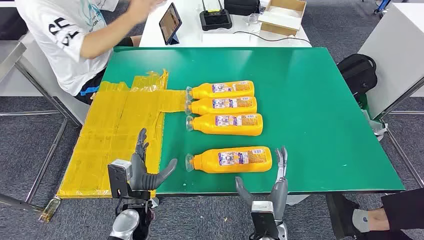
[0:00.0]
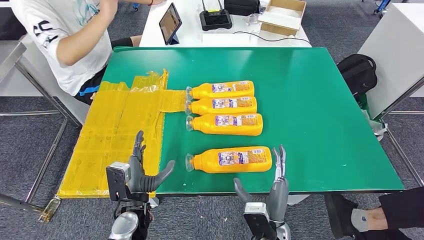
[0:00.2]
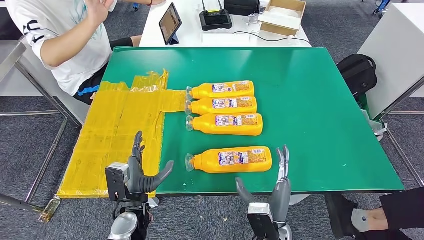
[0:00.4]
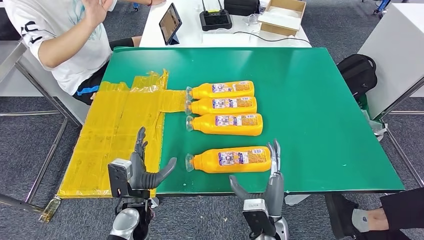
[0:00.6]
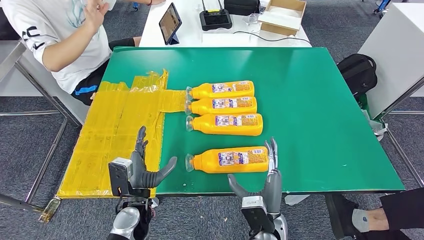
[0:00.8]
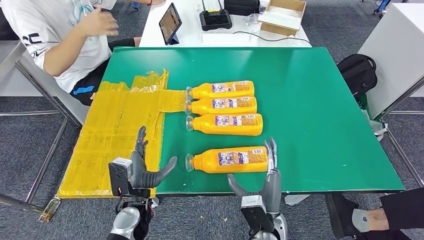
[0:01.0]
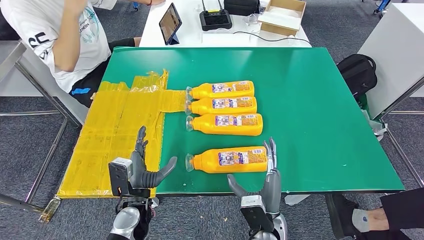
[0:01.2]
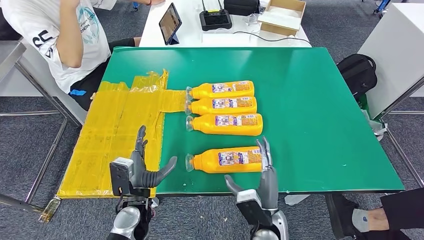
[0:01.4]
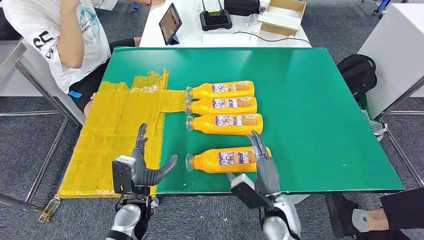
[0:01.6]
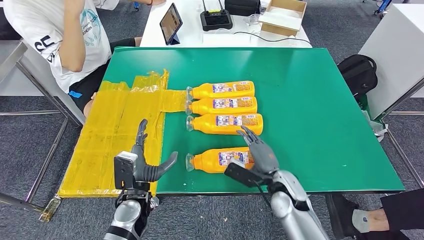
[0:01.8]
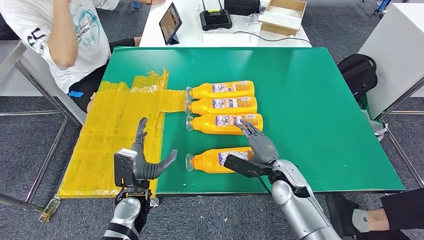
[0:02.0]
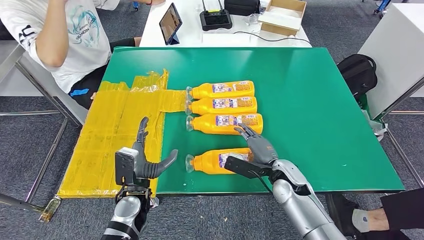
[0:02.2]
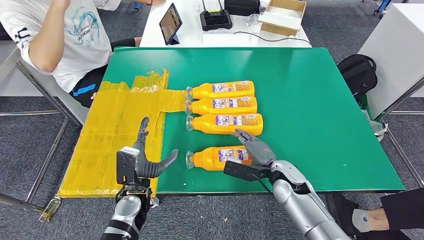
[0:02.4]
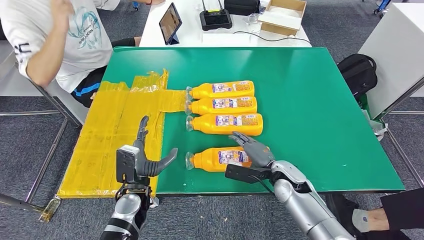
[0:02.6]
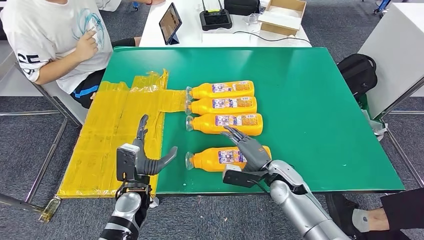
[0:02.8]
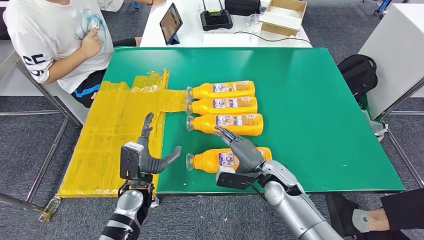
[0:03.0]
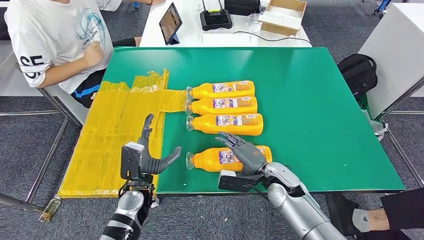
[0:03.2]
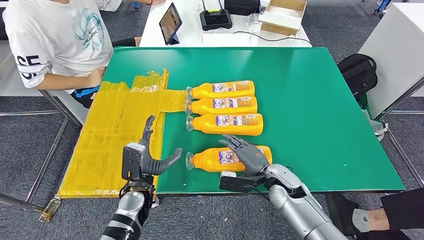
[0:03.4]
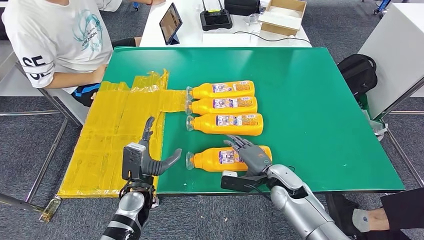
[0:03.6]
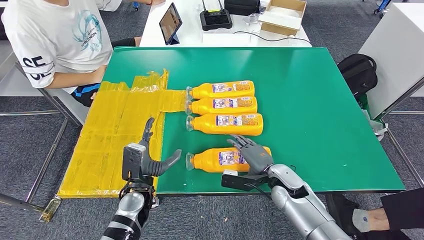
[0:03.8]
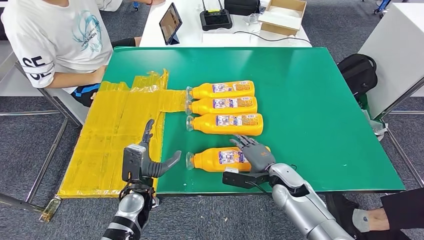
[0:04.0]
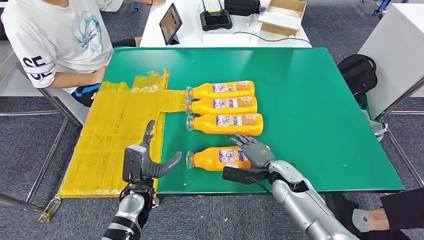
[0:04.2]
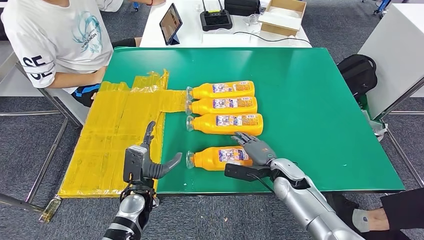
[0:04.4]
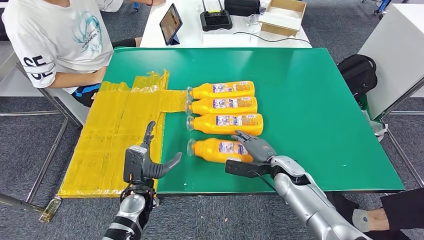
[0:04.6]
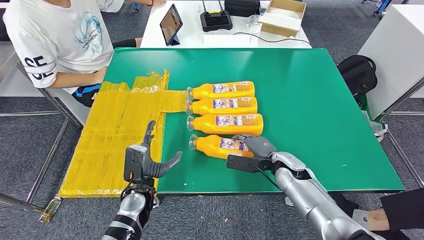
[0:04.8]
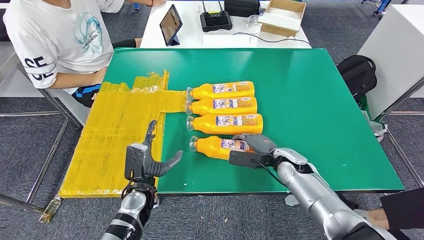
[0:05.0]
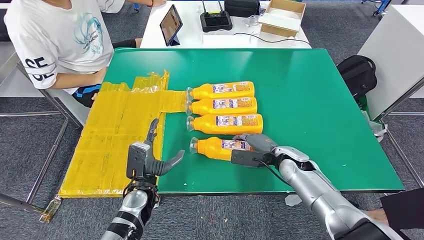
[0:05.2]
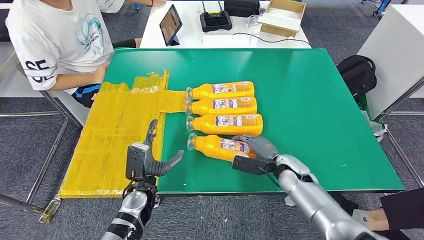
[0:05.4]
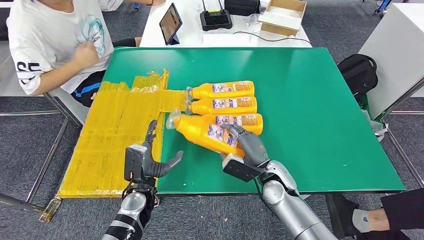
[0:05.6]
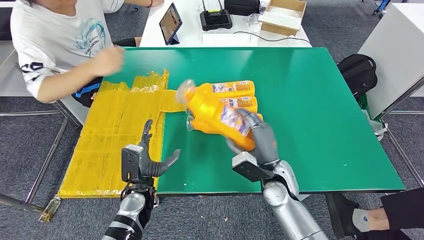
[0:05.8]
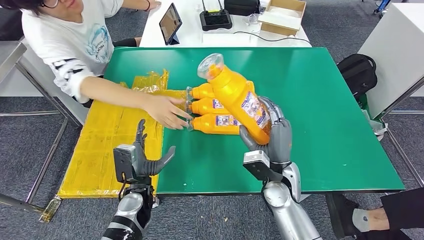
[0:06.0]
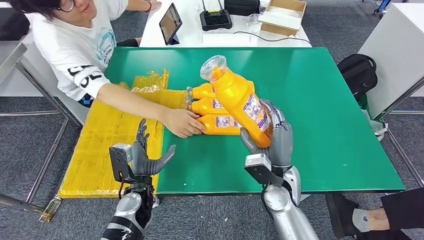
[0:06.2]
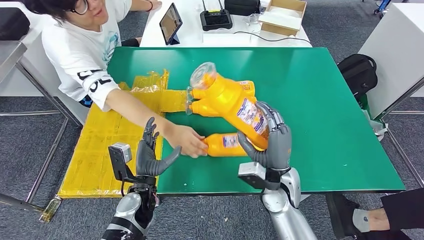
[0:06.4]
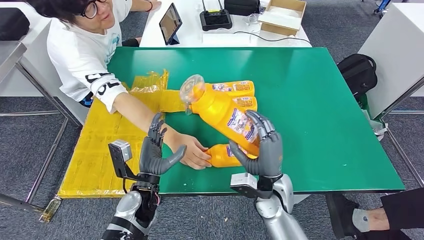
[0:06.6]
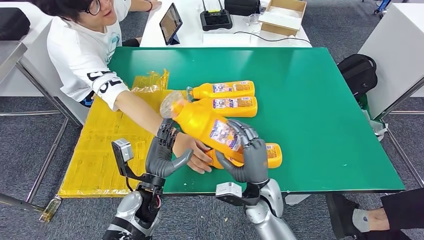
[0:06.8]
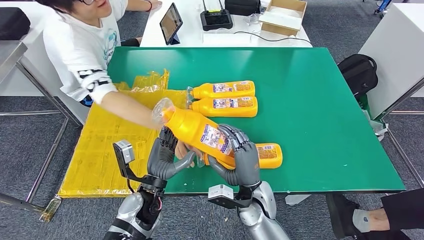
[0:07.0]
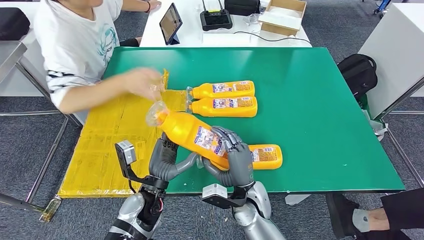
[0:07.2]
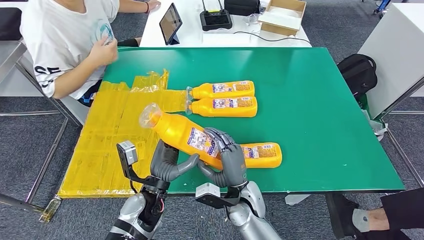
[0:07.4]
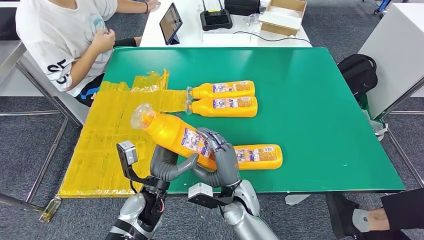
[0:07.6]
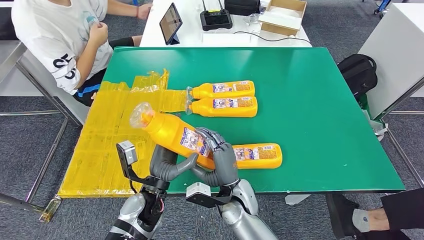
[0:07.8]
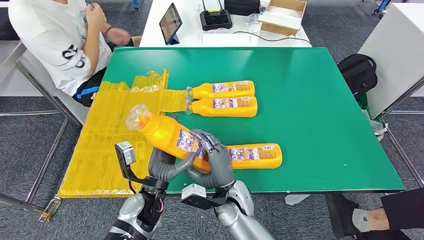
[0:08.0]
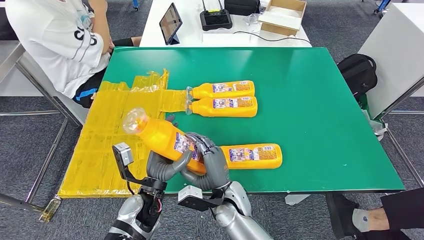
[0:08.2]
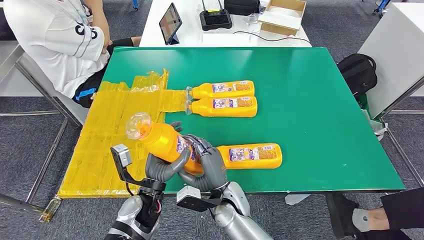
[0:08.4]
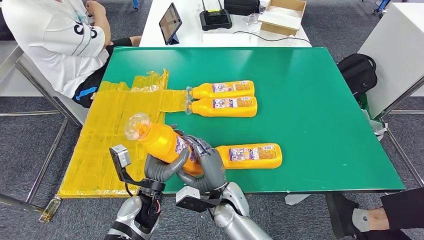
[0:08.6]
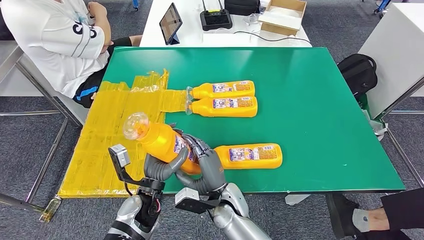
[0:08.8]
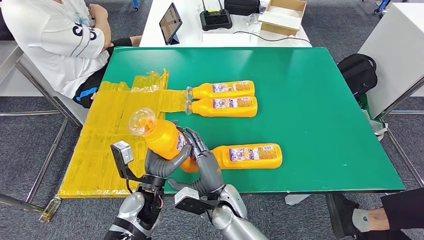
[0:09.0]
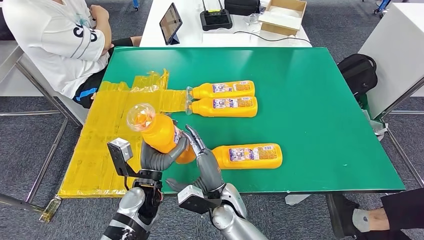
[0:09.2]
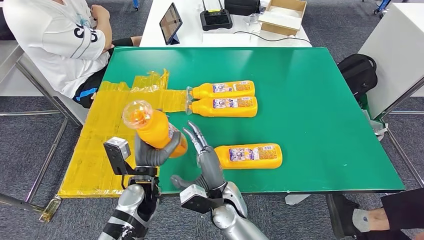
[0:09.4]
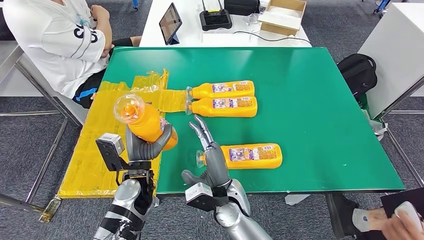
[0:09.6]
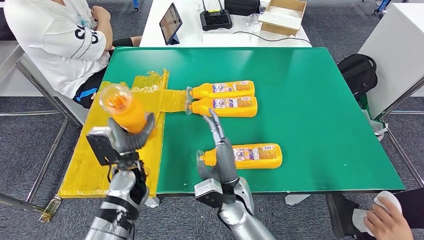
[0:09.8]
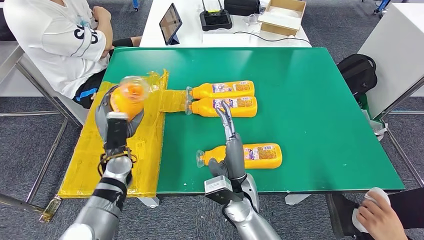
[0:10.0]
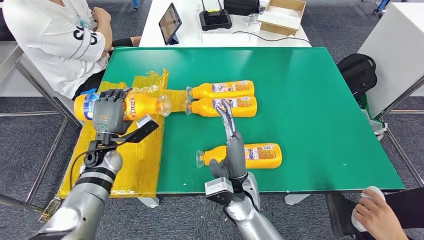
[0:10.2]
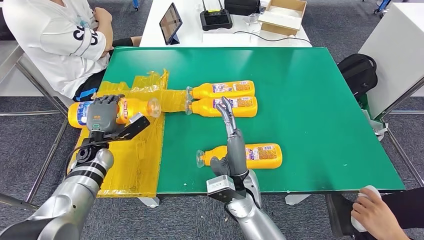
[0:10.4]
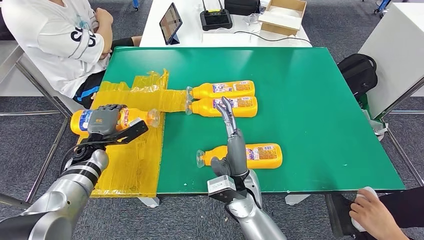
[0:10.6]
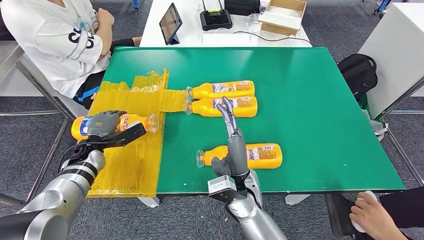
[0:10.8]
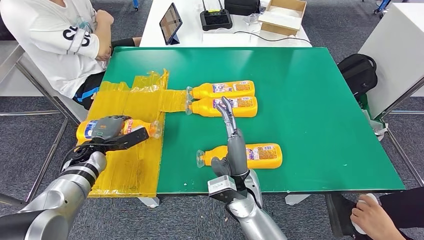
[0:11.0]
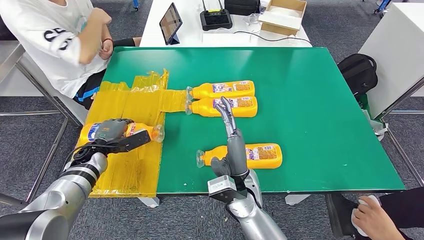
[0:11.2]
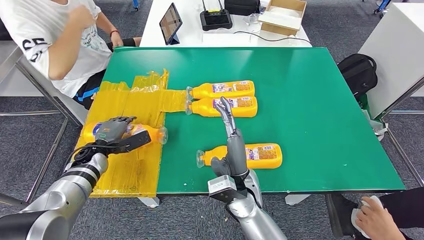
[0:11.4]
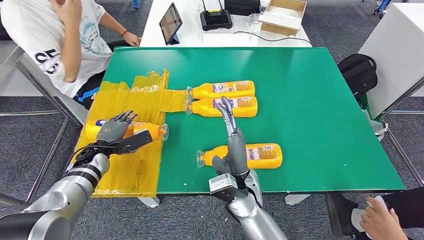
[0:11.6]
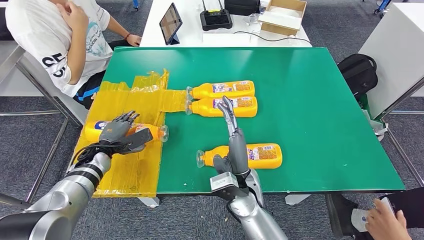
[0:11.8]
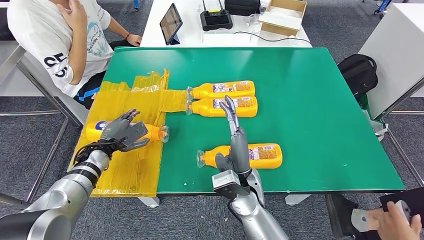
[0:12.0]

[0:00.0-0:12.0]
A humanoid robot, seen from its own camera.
Step, 0:00.0 to 0:06.2: Take the bottle from the table.
0:01.6 to 0:03.0: The right hand shifts some 10 cm forward.
0:04.4 to 0:06.0: The right hand goes roughly 5 cm upward.
0:07.6 to 0:09.0: The hands move only a little.

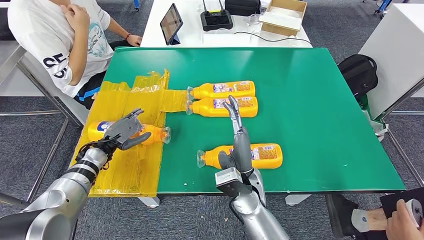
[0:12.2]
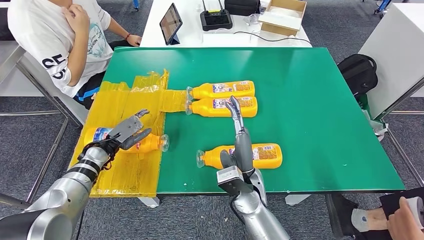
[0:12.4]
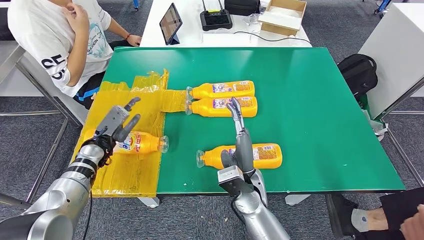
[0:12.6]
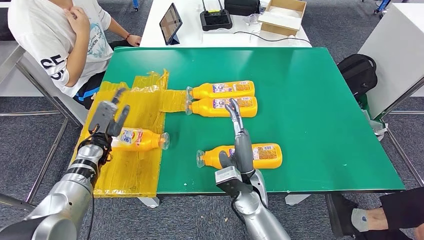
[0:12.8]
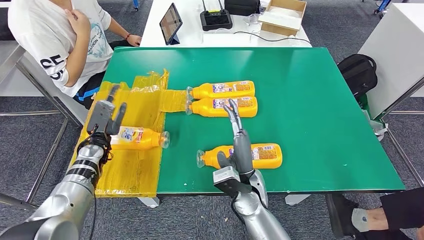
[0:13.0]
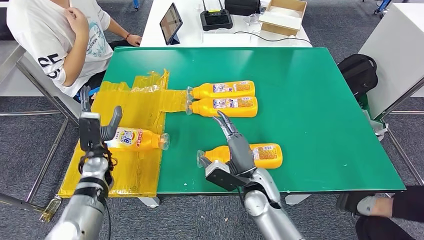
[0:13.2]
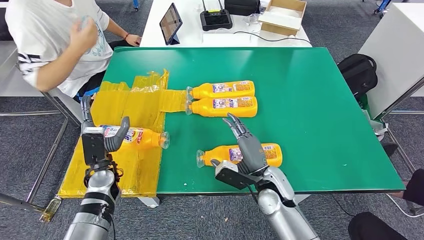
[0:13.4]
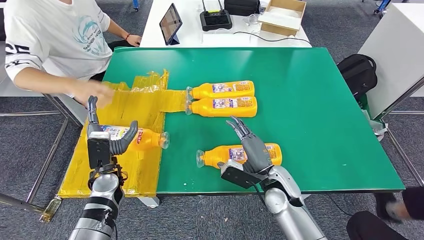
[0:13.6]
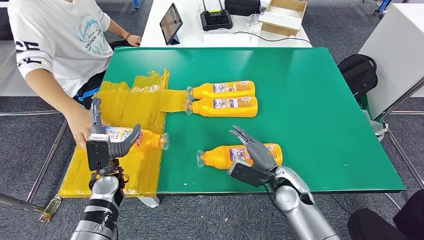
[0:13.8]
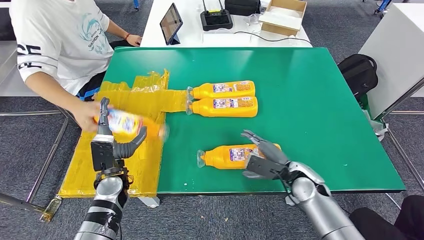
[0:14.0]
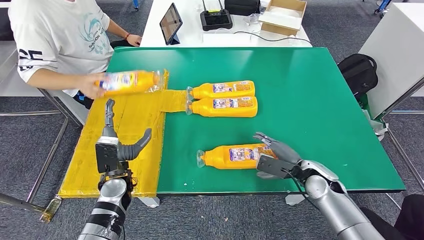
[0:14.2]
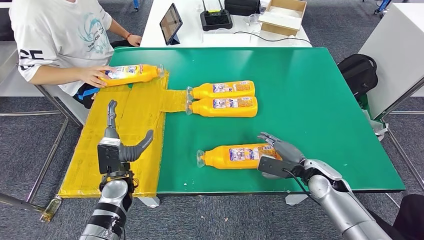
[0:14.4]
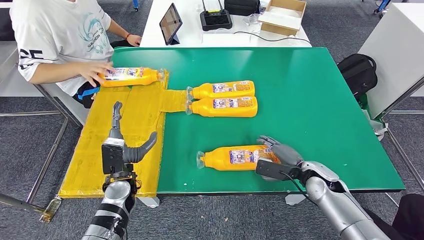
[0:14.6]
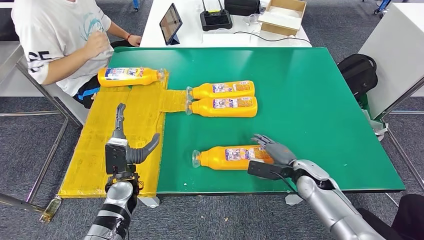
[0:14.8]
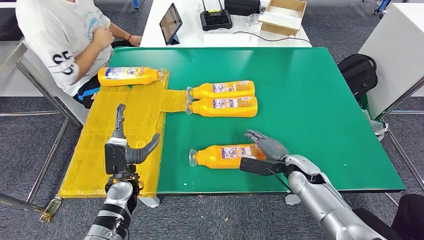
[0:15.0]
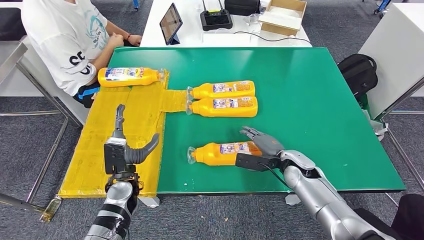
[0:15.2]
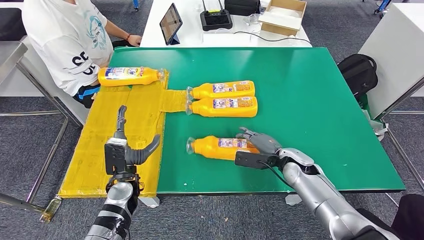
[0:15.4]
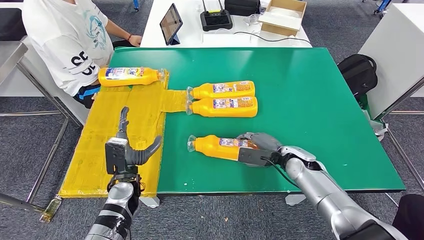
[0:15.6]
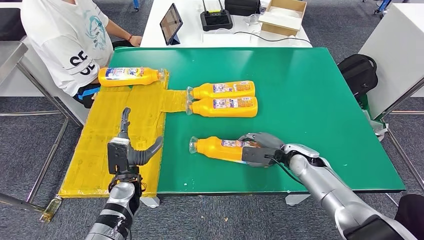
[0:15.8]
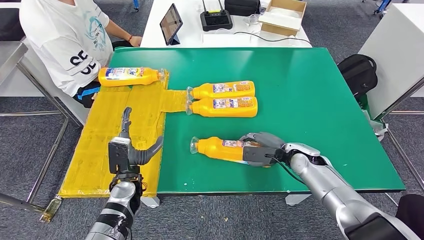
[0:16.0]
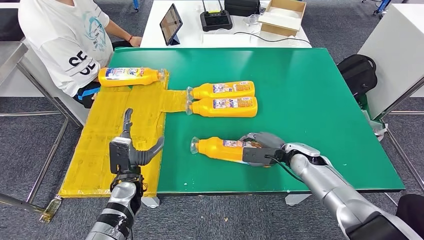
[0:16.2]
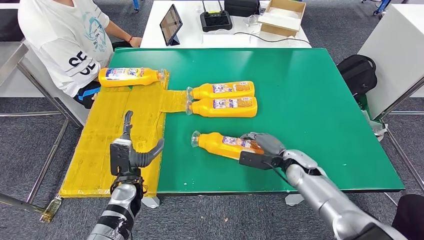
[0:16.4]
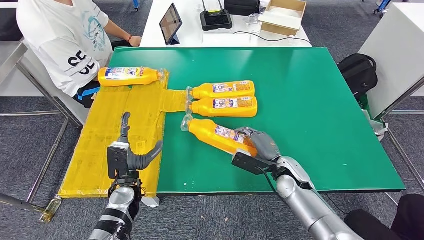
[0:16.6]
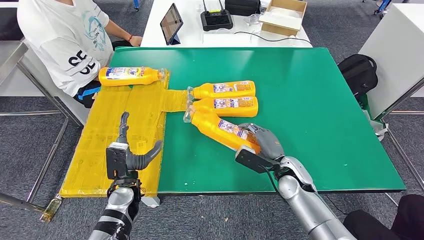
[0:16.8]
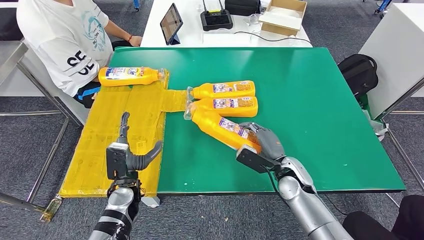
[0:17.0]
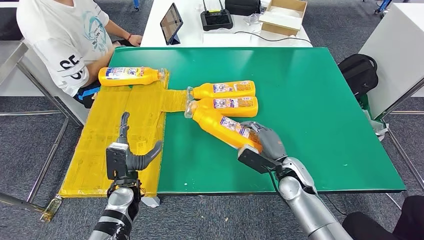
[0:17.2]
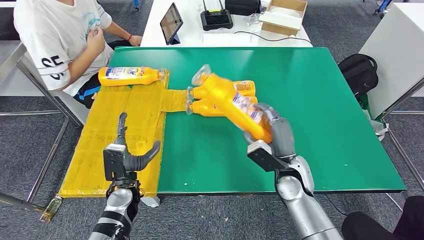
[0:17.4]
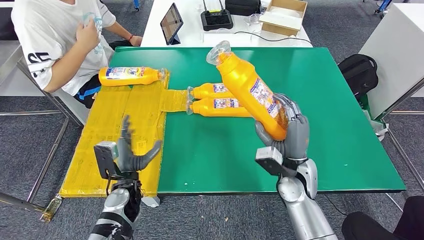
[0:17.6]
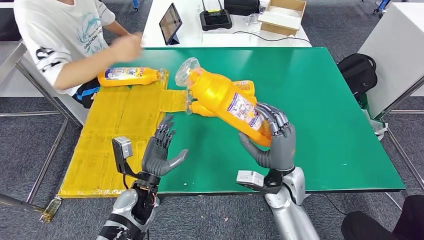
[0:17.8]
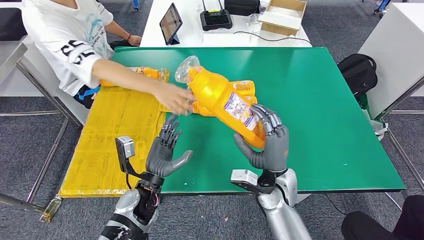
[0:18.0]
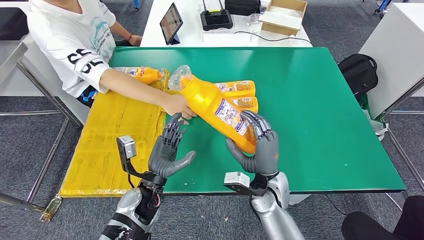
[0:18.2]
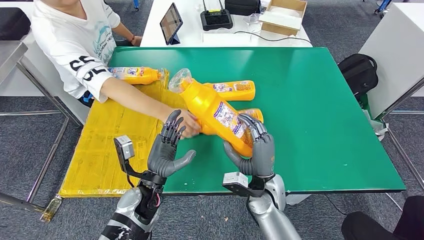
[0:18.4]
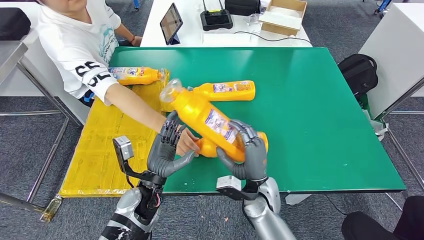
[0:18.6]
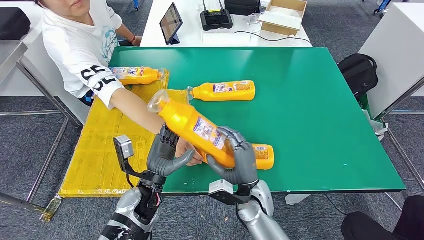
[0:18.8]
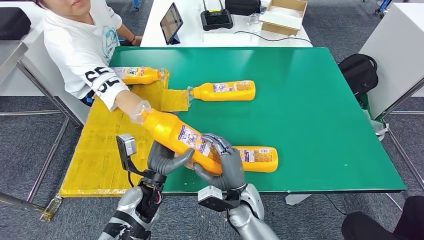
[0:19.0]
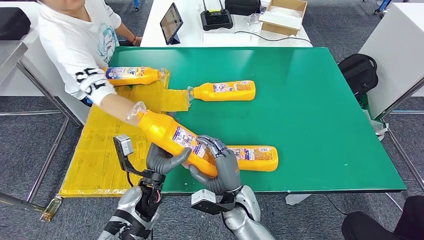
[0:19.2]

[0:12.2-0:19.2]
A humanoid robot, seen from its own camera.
Step, 0:13.2 to 0:16.8: Pick up the bottle from the table.
0:15.0 to 0:16.4: The hands move only a little.
